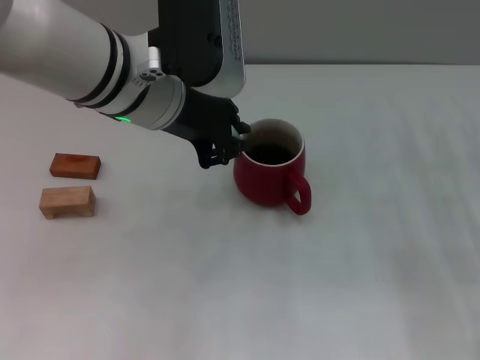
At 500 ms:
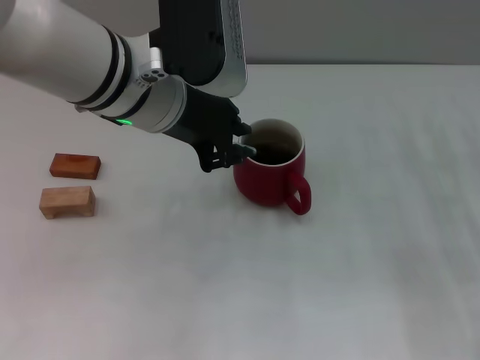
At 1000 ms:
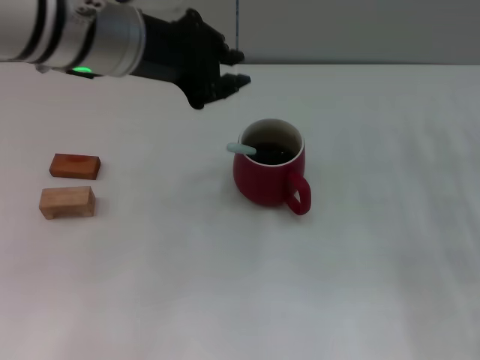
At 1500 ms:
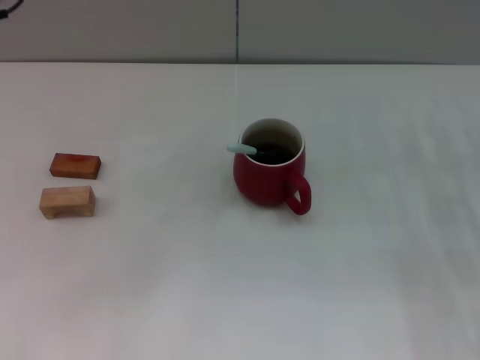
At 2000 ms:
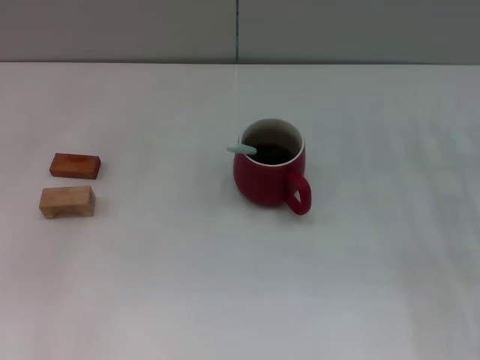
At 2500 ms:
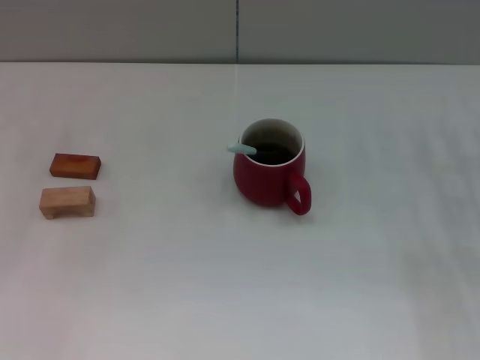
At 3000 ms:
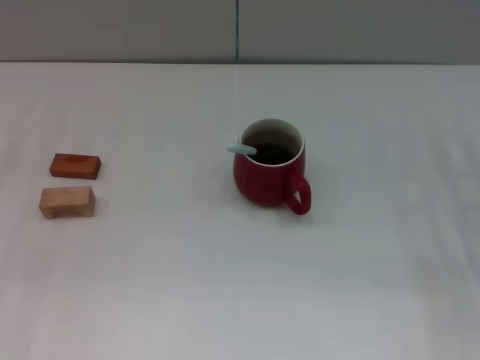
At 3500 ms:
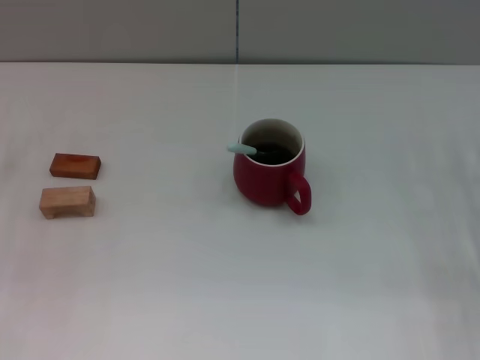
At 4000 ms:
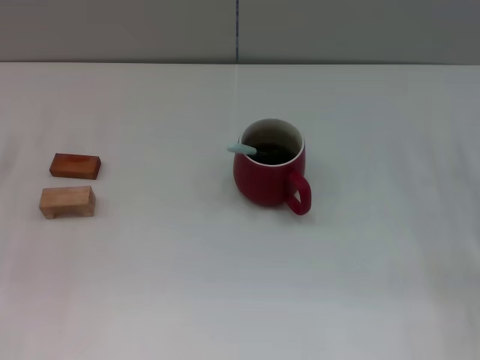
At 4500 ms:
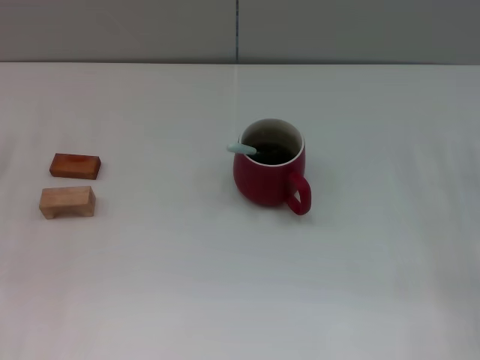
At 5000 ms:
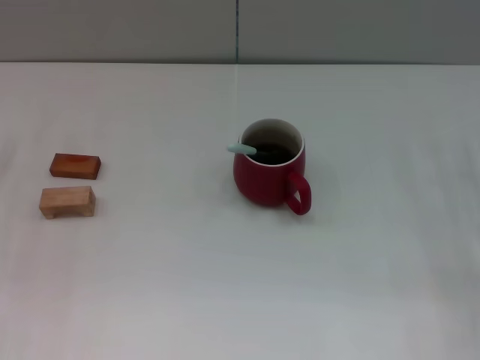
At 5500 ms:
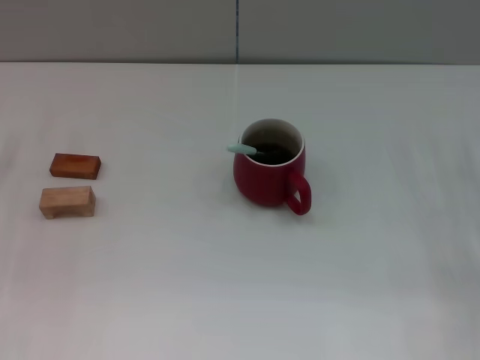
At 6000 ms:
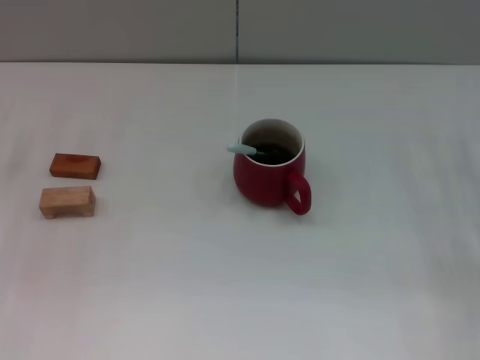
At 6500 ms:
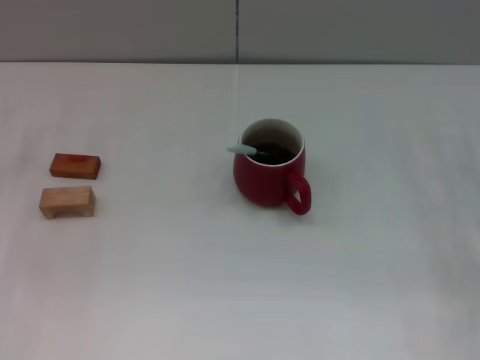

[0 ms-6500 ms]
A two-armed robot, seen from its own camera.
Task of the whole recording: Move the red cup to the center, lift the blue spoon, stir it three times in the cup, and put the spoon into the cup.
0 ms to 2000 ms: The left gripper shifts about 20 cm to the left.

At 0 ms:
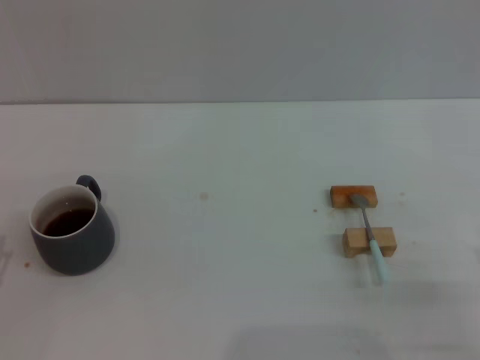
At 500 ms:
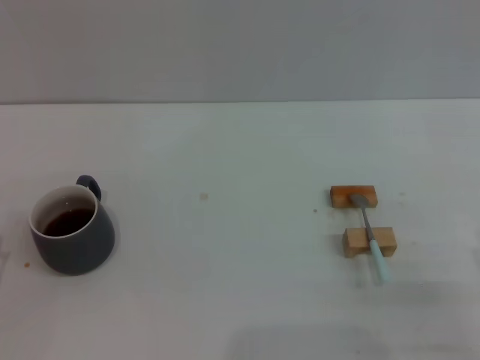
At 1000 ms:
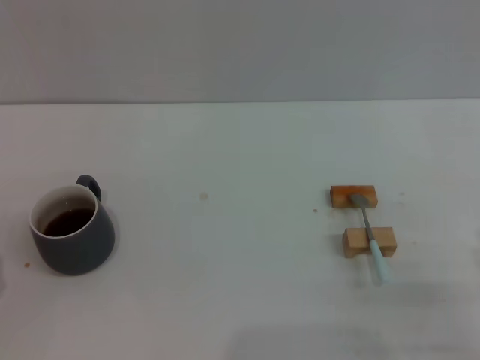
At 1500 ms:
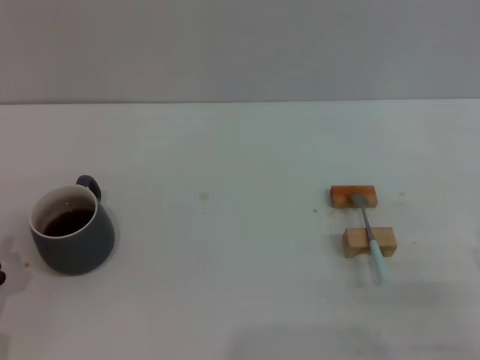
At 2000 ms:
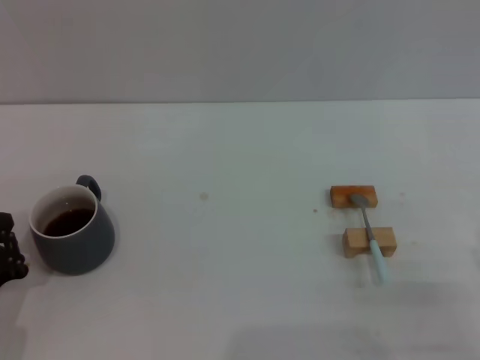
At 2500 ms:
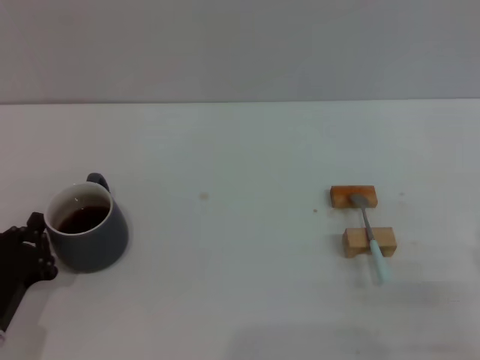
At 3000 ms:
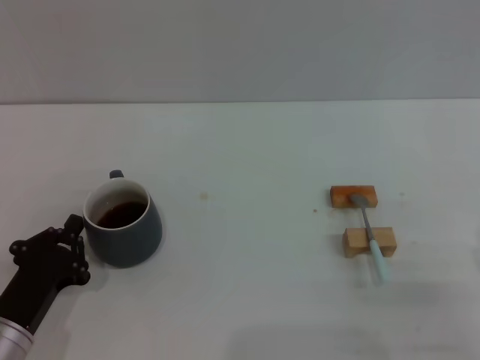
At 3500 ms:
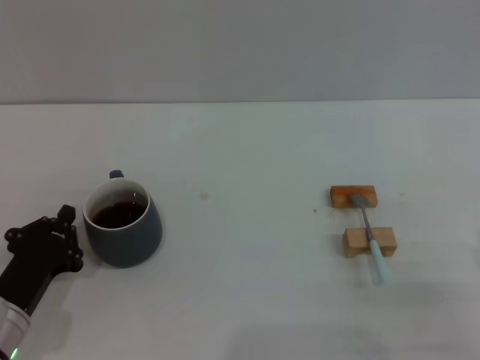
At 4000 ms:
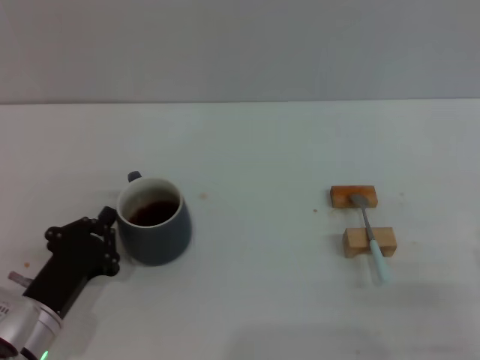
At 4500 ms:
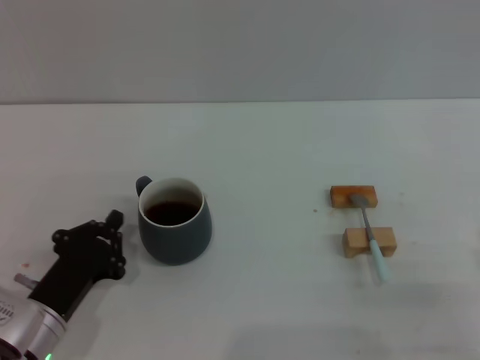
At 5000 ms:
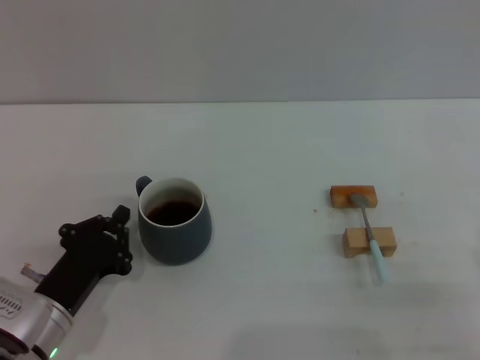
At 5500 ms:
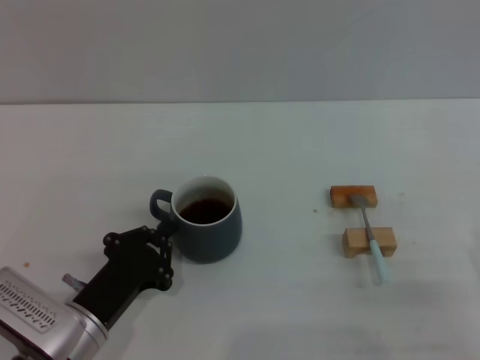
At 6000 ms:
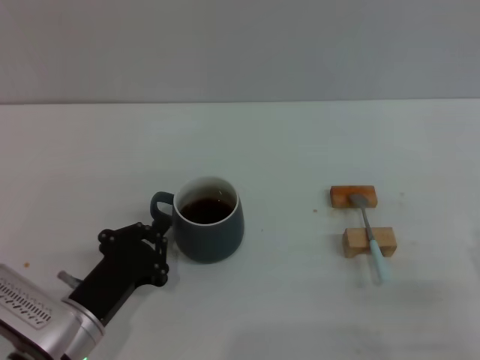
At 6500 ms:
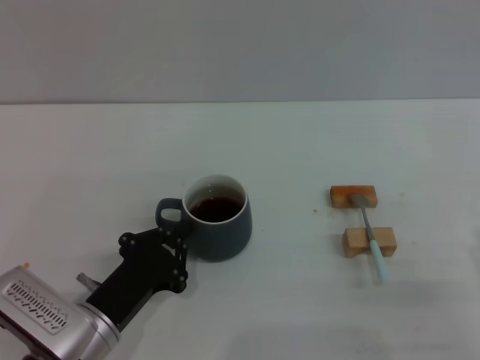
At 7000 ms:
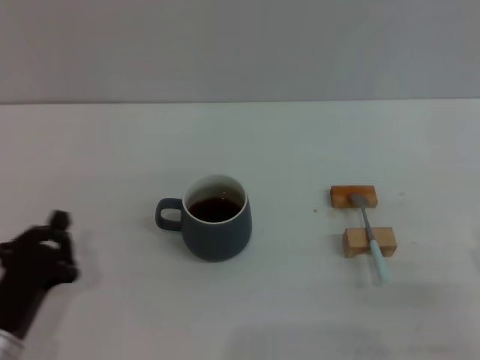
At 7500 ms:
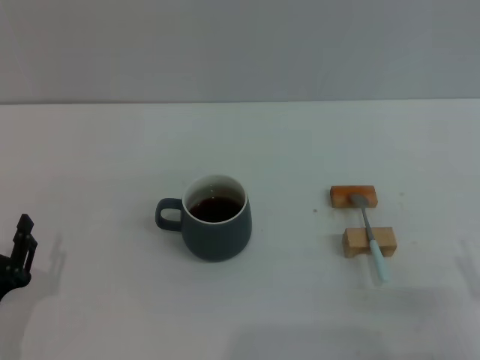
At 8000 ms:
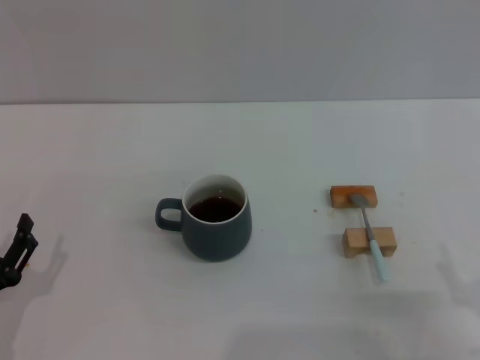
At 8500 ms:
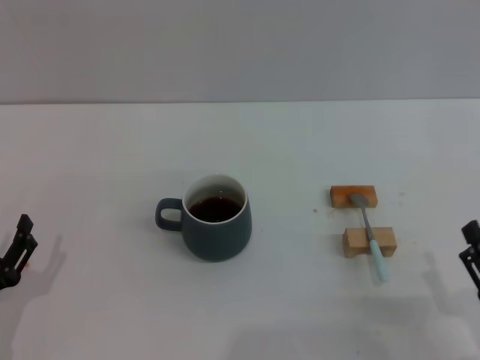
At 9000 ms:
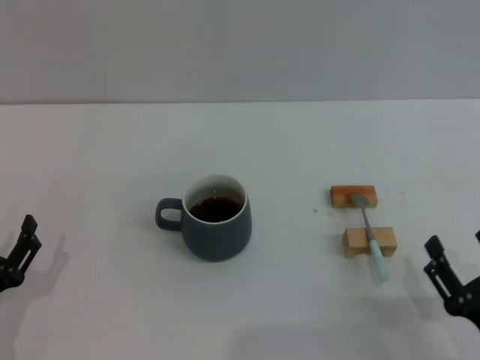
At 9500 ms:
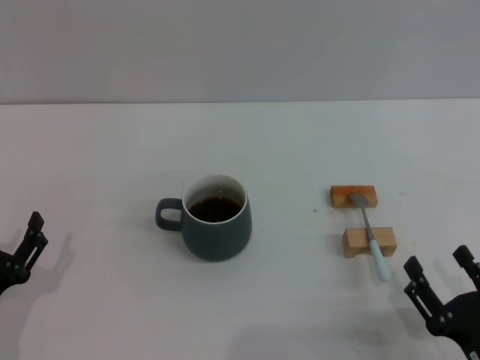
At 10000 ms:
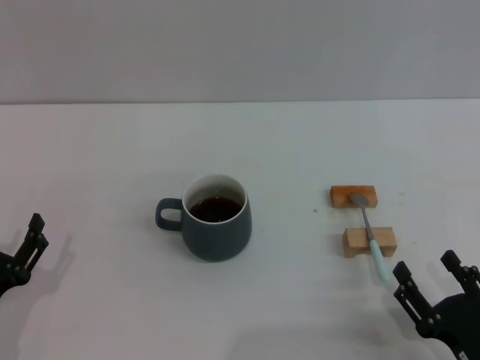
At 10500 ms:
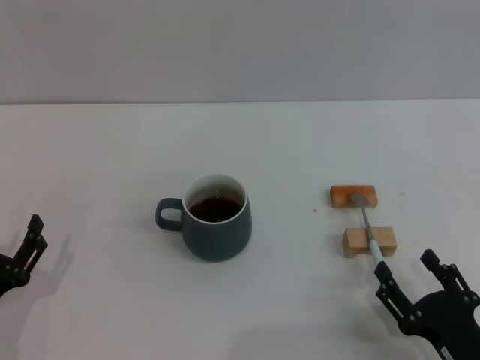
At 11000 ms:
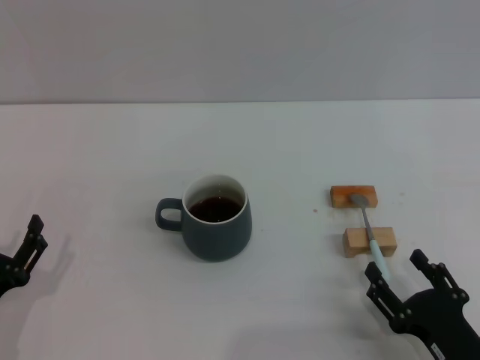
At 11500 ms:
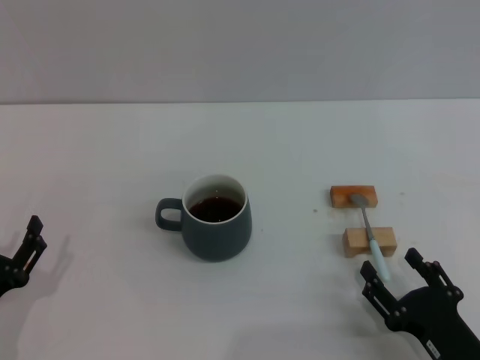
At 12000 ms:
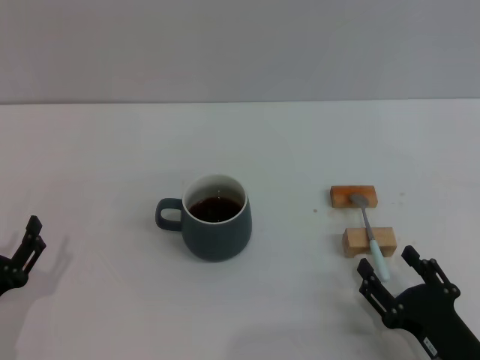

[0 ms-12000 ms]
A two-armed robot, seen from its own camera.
Task of the whole recording: Move the grey cup to the center, lift the blue spoon, stir it three times in the cup, and put the spoon into the cup.
Step, 0 ms to 6500 ms: Move the cup with coffee to the center of view with the left gripper.
0 ms to 2000 ms: The left gripper closes its fingers.
2000 ms to 4000 ms: The left gripper moves to the right, approximately 5 cm.
4000 ms to 6000 ms: The grippers stay close to where they were, moving slightly.
6000 ms to 8000 ms: The left gripper moves to the left, roughly 10 cm, and opens its fingers.
10000 ms to 12000 ms: The grippers move only a little.

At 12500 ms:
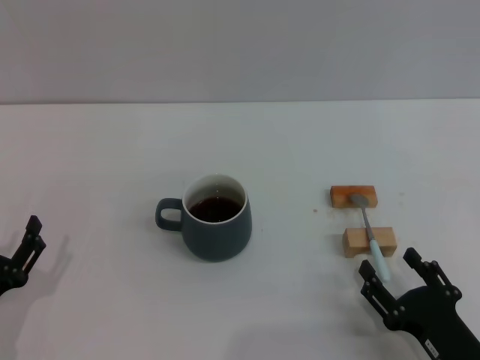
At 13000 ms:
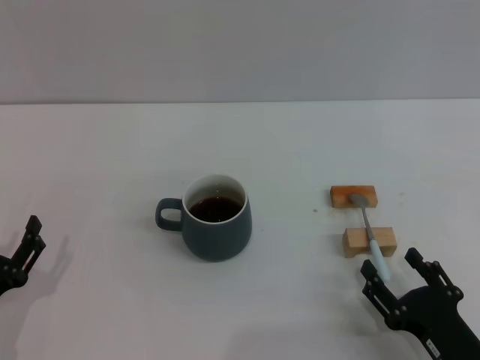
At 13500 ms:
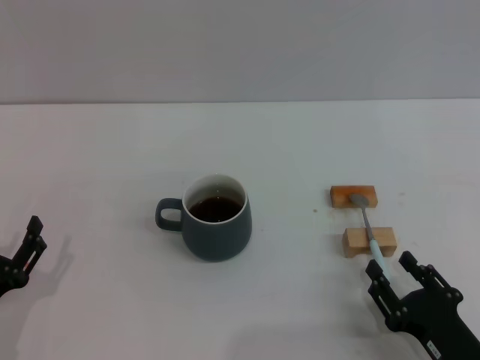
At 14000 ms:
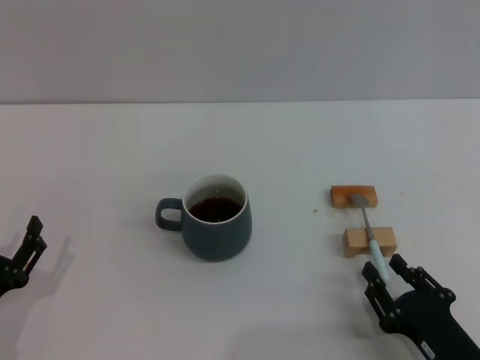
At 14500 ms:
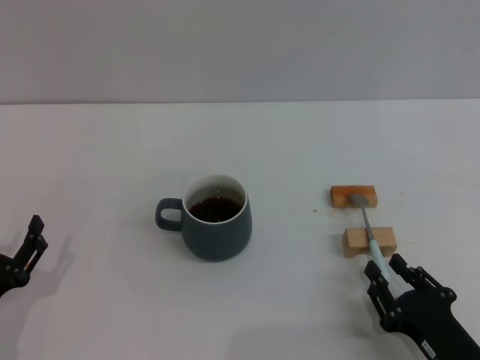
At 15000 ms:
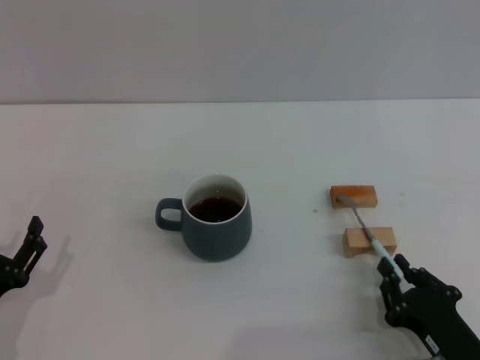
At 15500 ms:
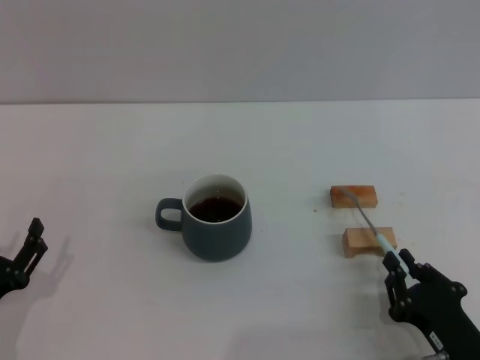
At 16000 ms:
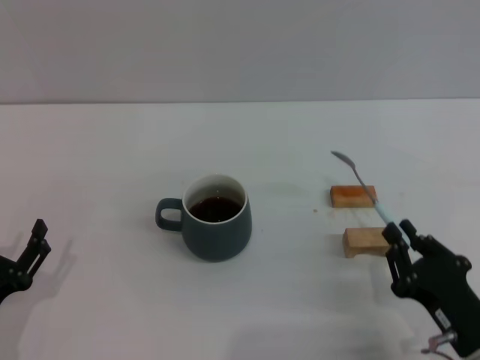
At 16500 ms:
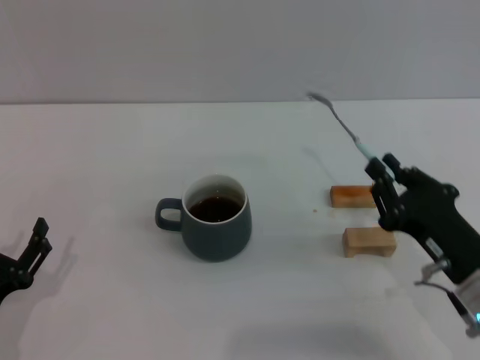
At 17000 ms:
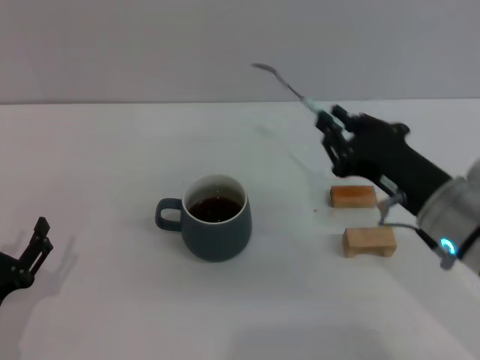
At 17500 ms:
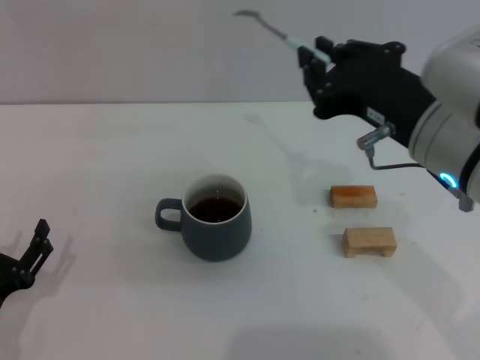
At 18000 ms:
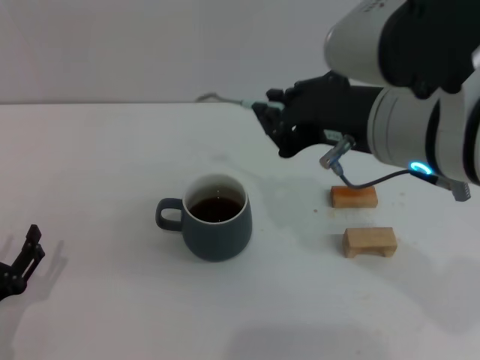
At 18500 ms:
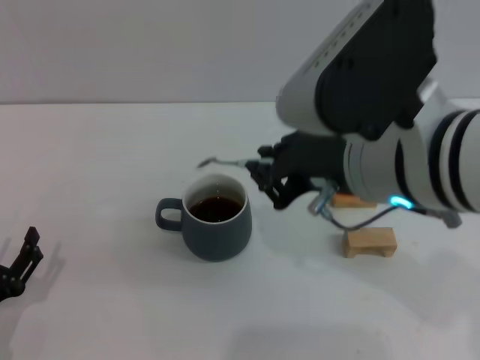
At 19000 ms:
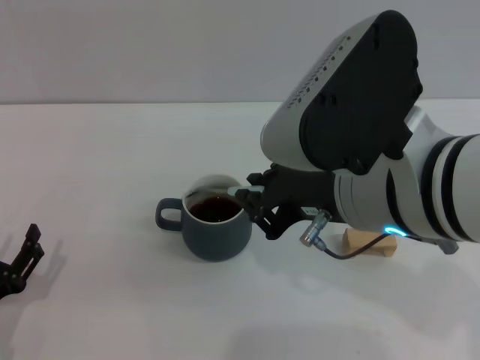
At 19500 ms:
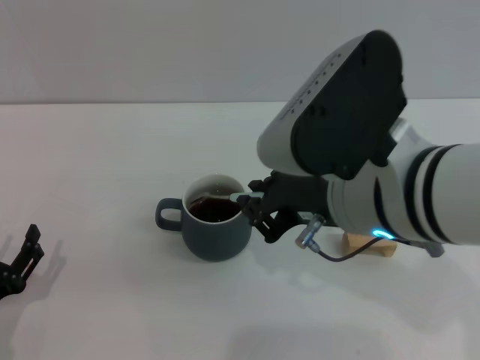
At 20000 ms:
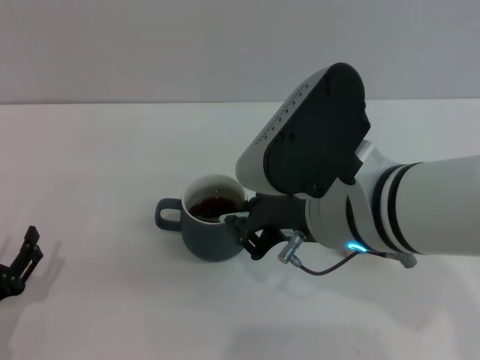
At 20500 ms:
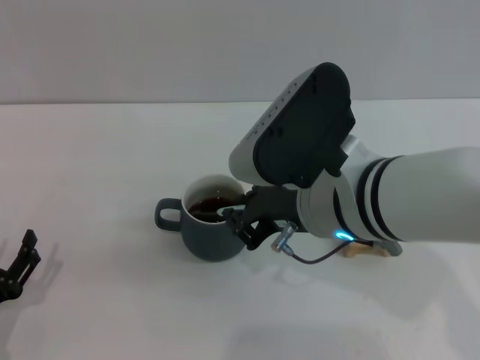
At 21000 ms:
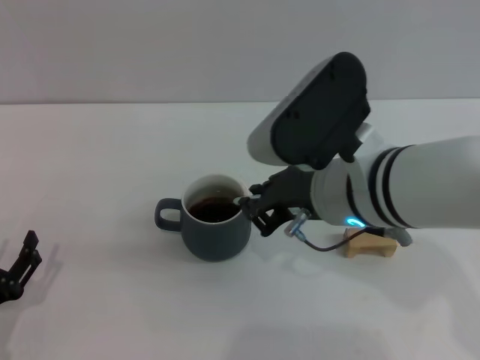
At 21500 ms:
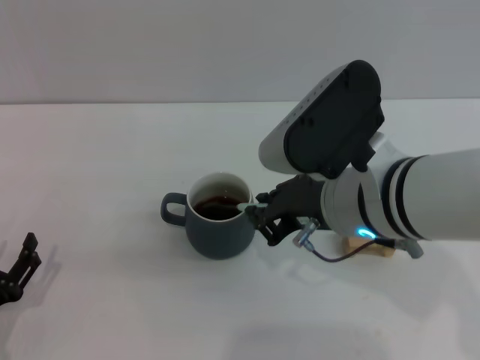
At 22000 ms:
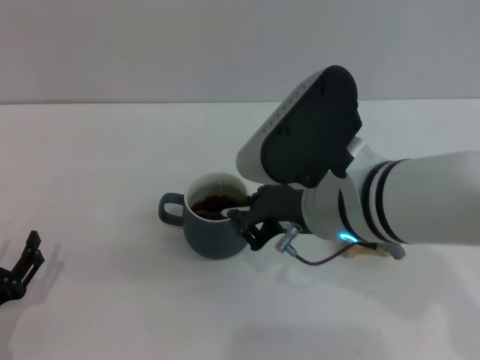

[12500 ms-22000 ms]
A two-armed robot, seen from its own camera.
Task of the whole recording: Move the grey cup to the center, lift the blue spoon, stir it three times in the cup, and put the spoon into the cup.
Step, 12500 ms to 16000 ms: Pick up the spoon with the right gripper.
12500 ms to 14500 ms: The right gripper closes up.
14500 ms to 16500 ms: The right gripper goes approximately 10 cm upward and forward, and closes up.
16500 ms to 18000 ms: The right gripper is displaced upward and to the left by about 20 cm.
18000 ms to 20000 ms: The right gripper shifts approximately 5 cm downward.
20000 ms to 22000 ms: The grippers stay close to where they were, moving slightly.
